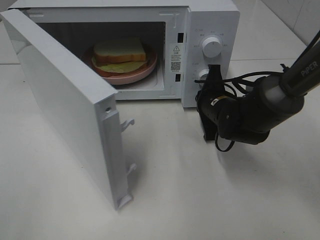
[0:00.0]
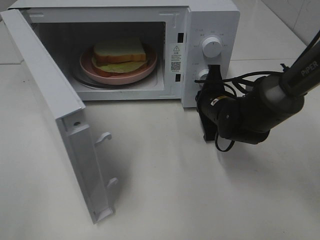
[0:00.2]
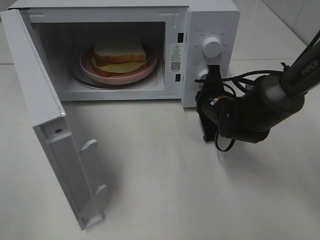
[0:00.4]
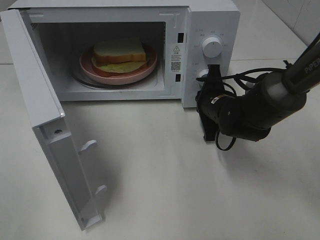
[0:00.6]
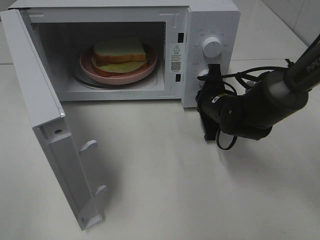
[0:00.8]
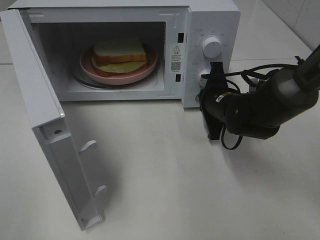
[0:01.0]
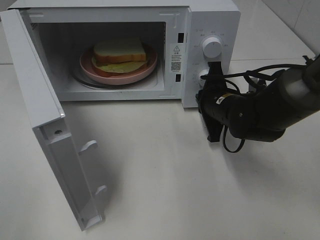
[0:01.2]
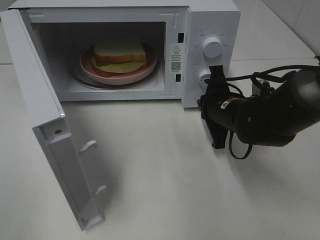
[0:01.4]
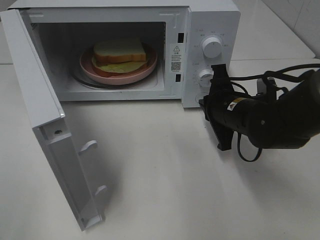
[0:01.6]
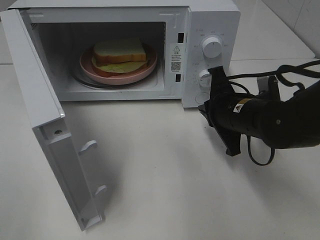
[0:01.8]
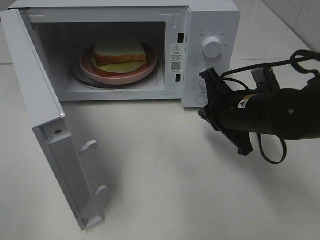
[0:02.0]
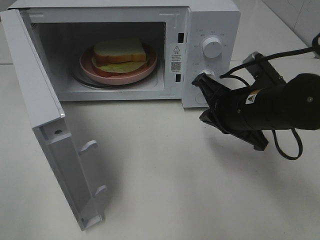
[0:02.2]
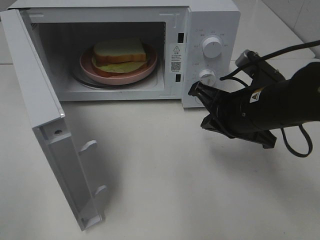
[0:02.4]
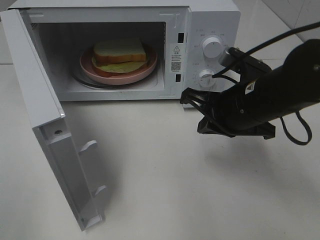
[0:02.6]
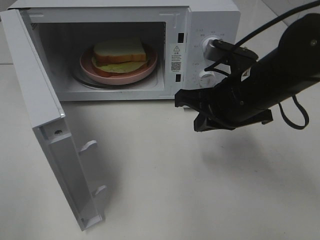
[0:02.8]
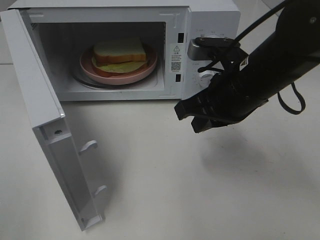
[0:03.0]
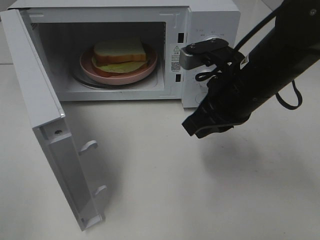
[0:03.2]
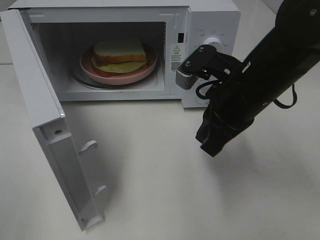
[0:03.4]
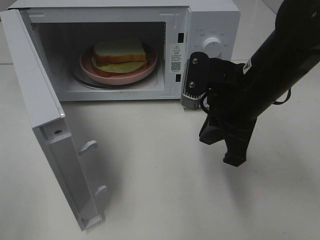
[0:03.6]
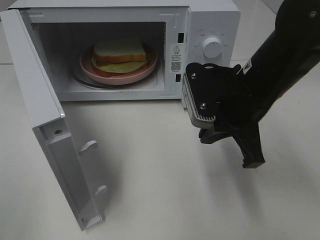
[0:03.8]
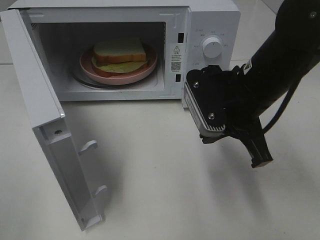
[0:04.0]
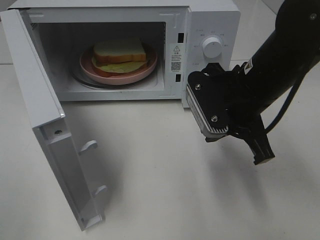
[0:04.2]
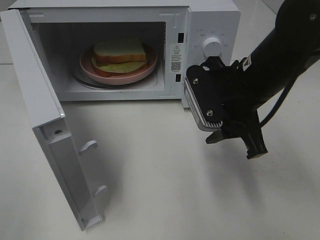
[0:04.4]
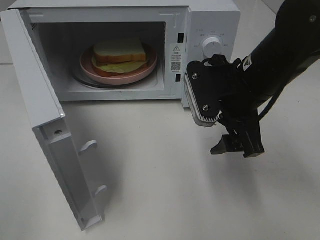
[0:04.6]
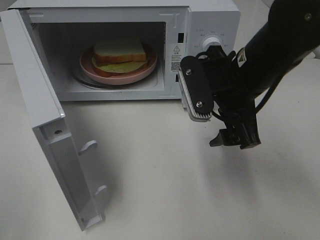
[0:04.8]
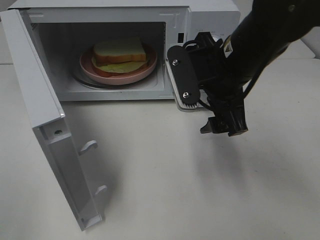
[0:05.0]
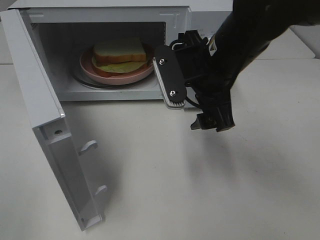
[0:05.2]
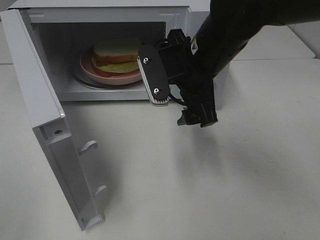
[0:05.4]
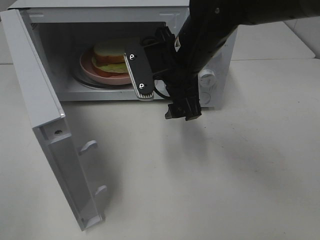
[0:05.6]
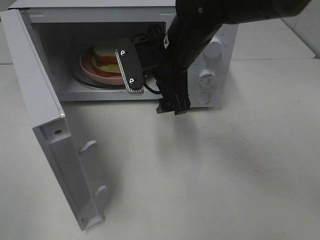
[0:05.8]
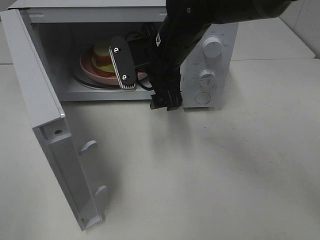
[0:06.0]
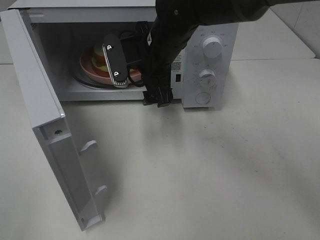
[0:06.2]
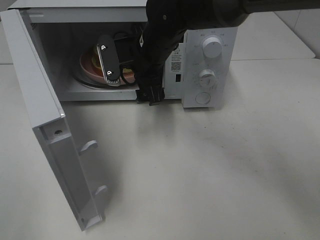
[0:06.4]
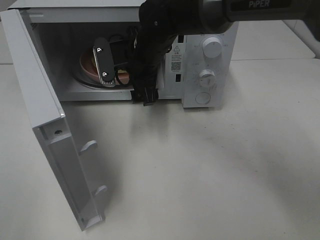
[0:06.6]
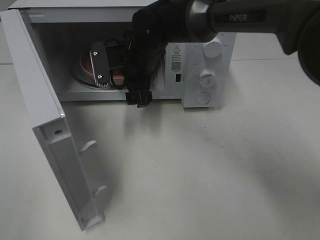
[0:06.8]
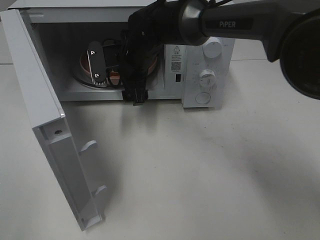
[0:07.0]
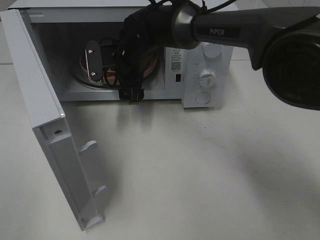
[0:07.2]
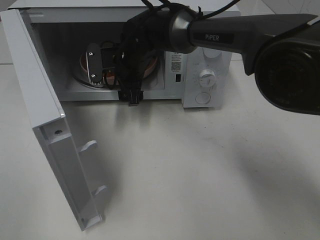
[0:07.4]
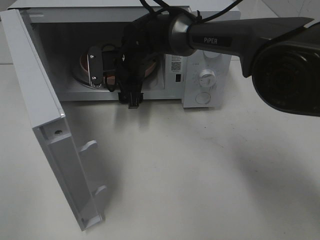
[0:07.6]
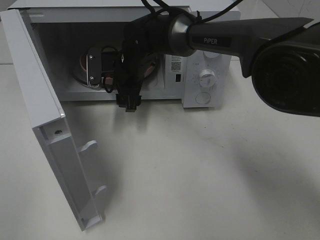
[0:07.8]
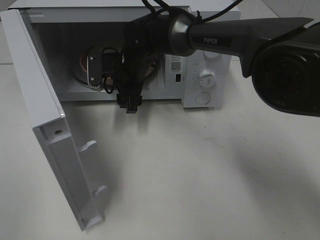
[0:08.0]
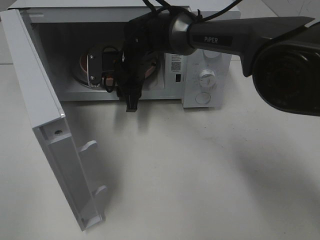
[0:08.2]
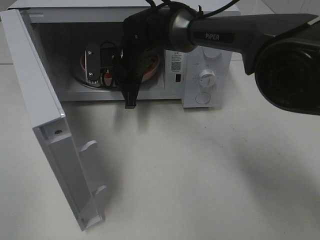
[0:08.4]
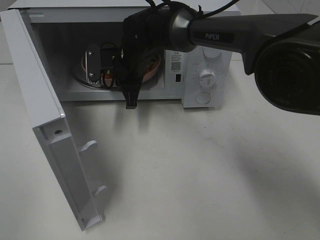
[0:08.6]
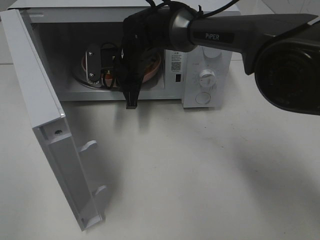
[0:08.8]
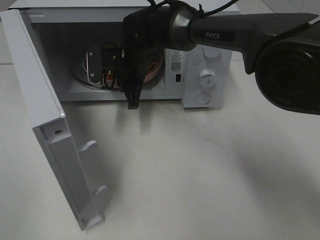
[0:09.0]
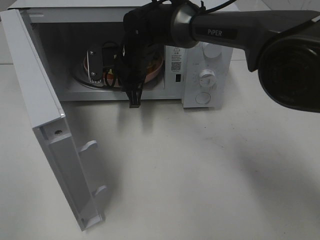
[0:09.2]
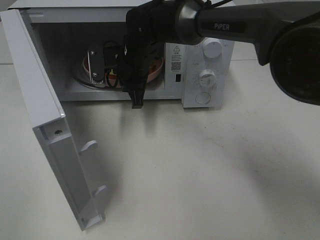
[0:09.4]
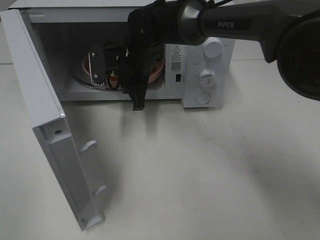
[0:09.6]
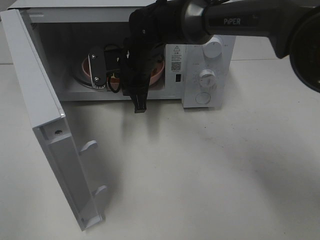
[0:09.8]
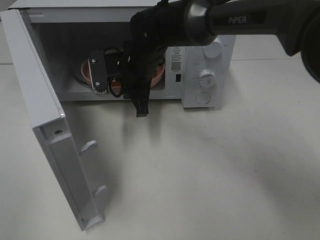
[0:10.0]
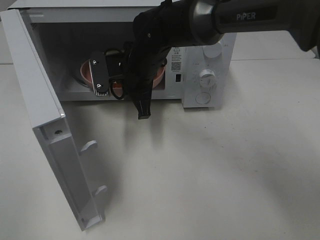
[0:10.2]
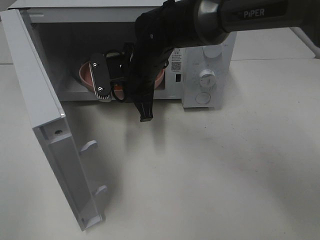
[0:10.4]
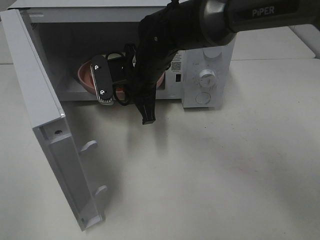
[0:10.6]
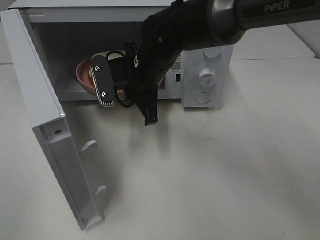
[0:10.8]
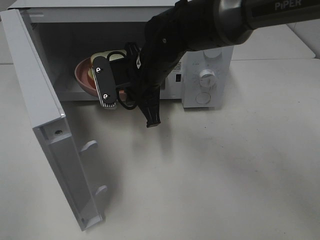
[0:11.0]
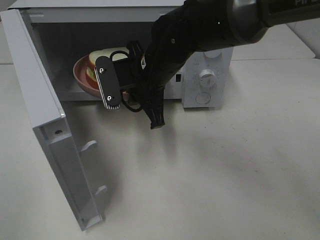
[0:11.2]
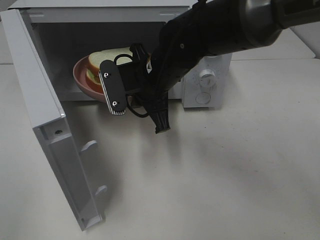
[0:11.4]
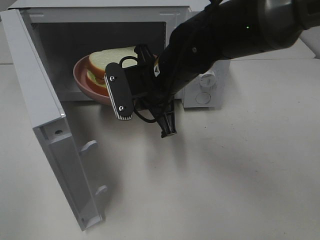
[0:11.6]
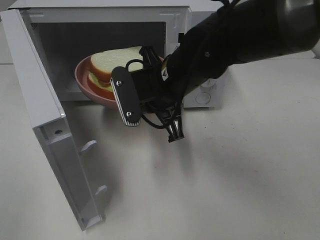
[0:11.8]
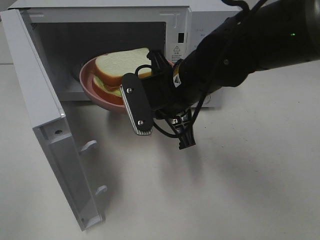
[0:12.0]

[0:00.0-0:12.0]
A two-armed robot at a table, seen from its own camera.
Task of the whole recording: Heat Sandwich.
Step, 0:01.6 to 0:08.8: Right hand: grab the plate with the sandwich.
0:00.0 to 0:01.6: The right gripper goes about 5 cm backward.
0:01.6 to 0:03.0: The right gripper goes some 10 cm upward.
0:03.0 to 0:04.4: The right gripper opens its fingers.
0:04.4 to 0:06.0: The right gripper shifts about 15 cm to the left and forward, and opens up.
0:06.0 to 0:07.6: The right gripper heads forward, downward and to the left, covering some 15 cm.
0:07.6 to 0:09.0: The right gripper closes its fingers.
0:09.0 to 0:10.4: The right gripper travels backward by some 5 cm.
0:10.4 to 0:12.0: The right gripper moves backward and to the right, approximately 10 cm.

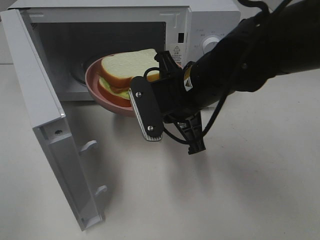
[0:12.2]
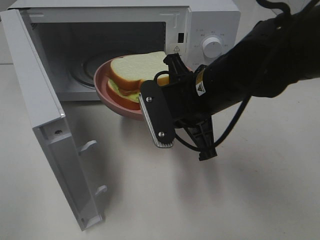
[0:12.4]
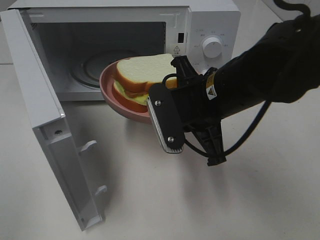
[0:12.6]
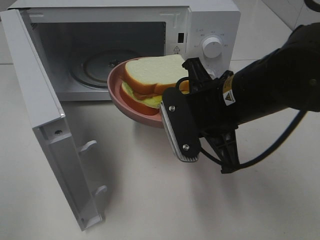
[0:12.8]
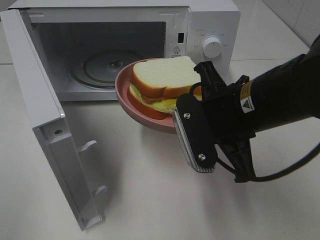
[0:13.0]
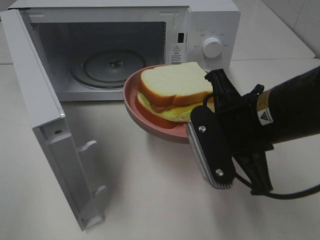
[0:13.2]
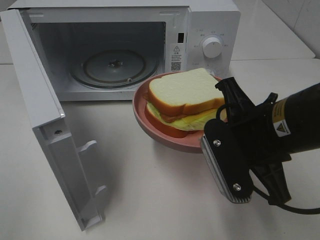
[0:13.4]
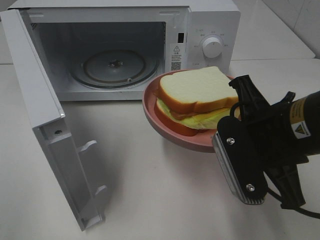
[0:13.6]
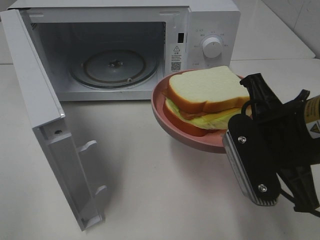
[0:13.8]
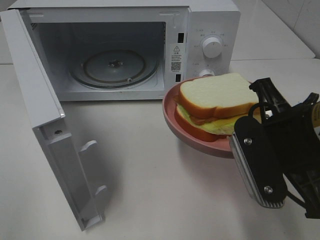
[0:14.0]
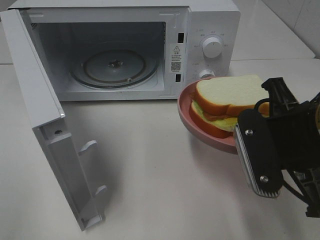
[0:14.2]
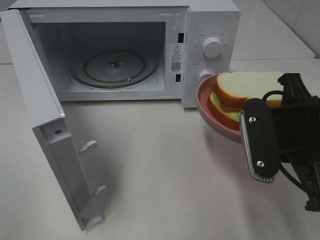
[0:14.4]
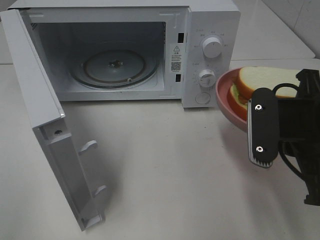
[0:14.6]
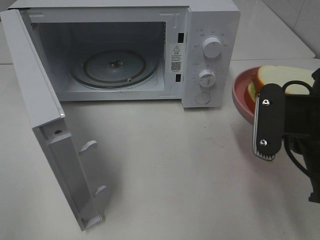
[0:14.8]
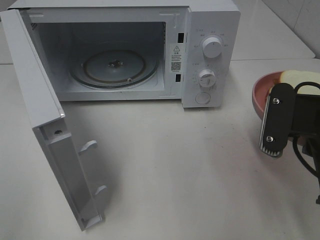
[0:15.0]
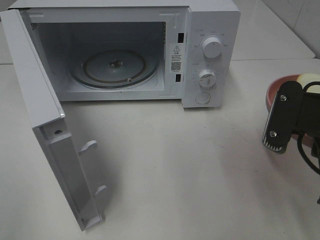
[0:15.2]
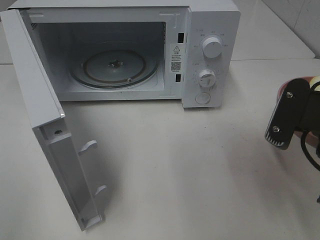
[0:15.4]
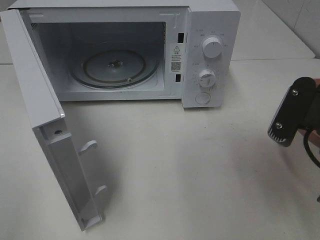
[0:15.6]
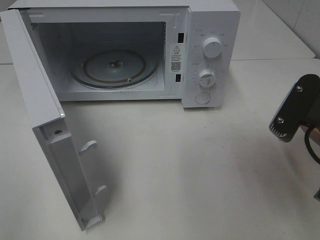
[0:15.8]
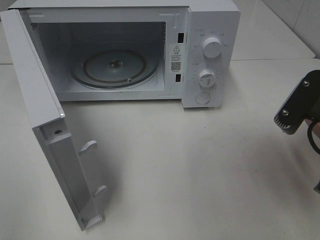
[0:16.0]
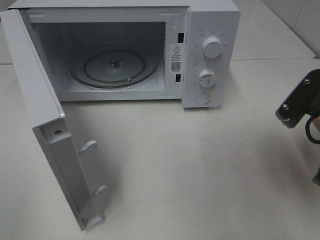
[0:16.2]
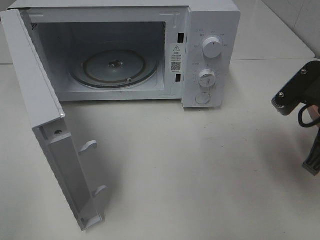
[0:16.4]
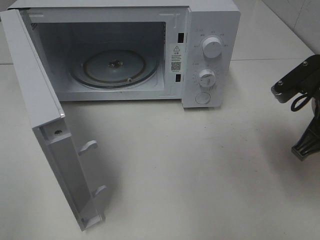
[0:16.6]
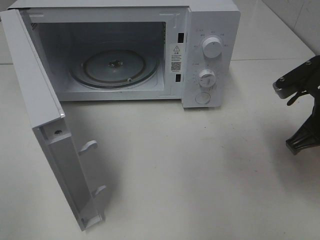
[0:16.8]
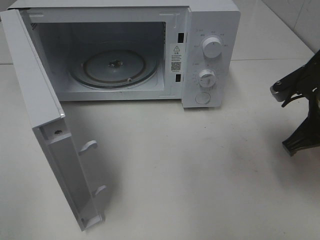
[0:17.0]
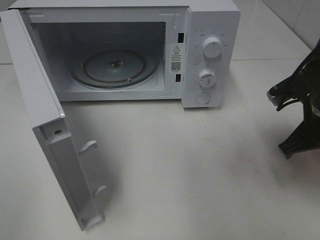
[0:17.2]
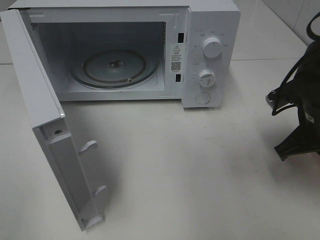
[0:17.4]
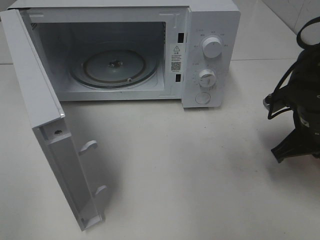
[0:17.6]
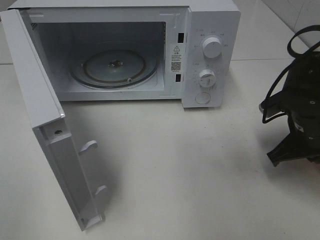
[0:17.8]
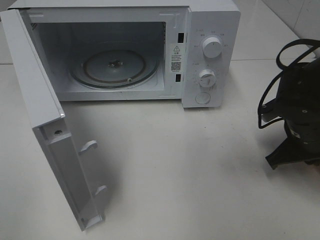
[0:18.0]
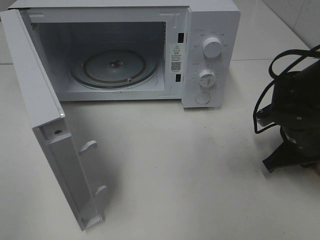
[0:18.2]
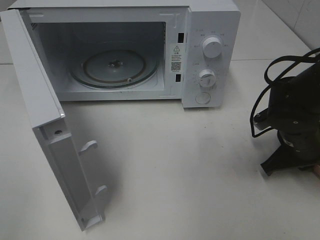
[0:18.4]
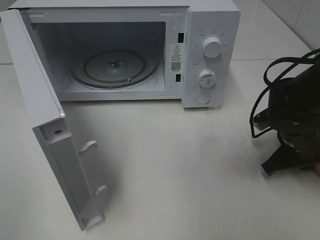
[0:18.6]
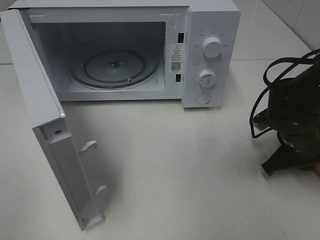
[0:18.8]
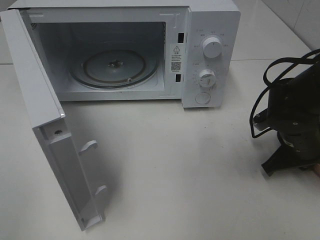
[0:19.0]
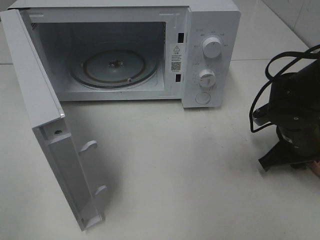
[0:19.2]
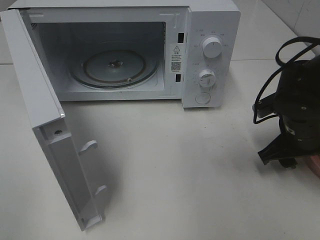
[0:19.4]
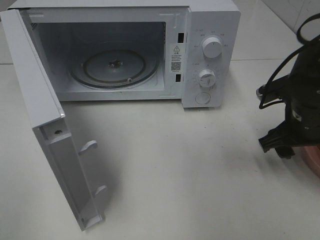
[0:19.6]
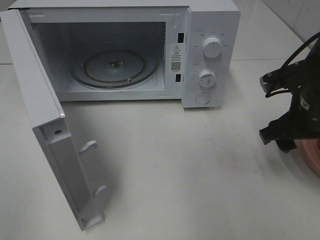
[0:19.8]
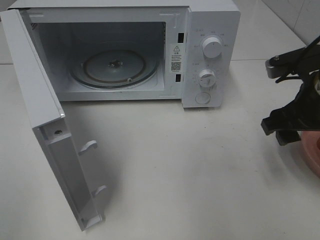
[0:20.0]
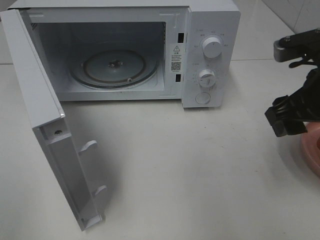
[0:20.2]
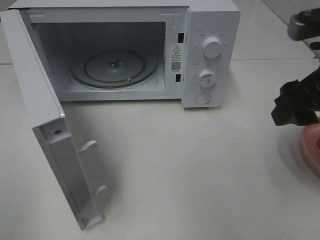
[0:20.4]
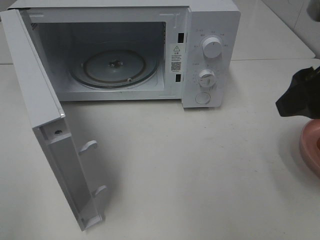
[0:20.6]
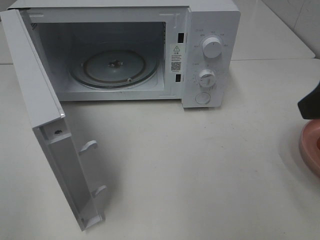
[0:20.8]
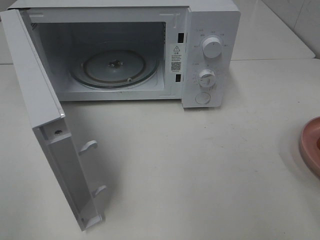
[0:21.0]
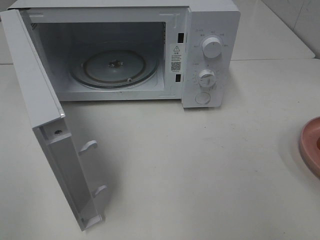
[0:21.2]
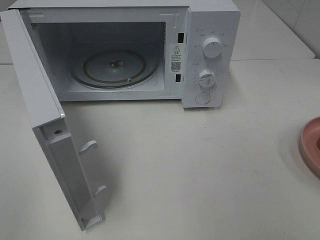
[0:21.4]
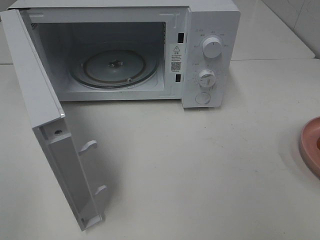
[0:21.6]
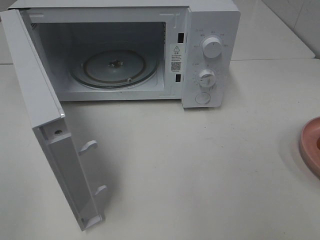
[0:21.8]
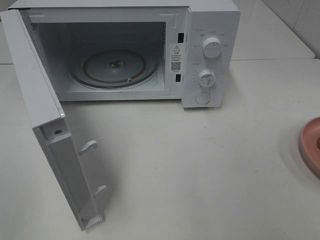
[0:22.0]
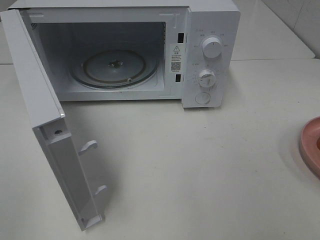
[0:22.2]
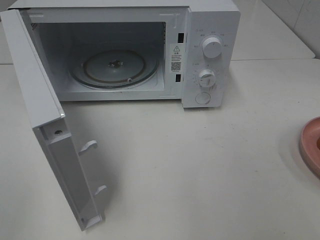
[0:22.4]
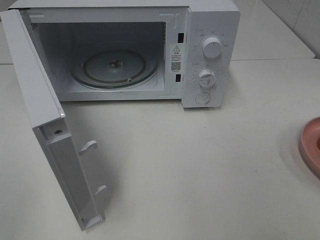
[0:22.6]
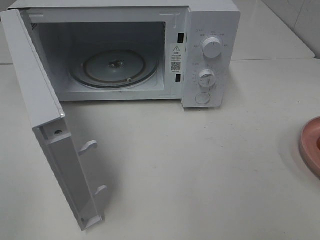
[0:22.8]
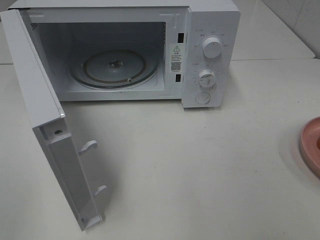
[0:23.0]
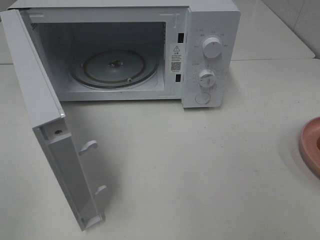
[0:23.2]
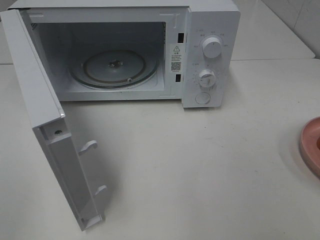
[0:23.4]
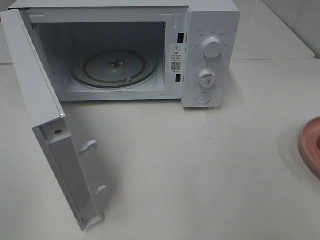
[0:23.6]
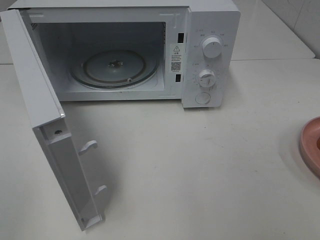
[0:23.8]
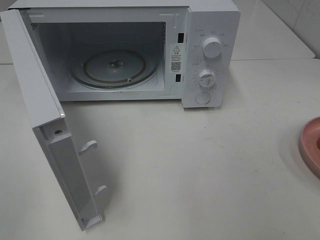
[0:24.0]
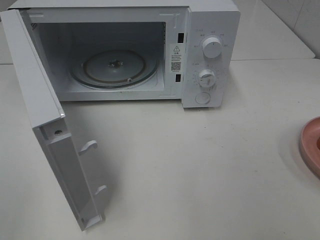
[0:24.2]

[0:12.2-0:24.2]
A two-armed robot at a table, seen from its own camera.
Task of the whole recording: Heat Sandwich.
Step, 0:12.2 to 0:20.6: Right hand: place the plate on the table.
0:12.2 to 0:13.8: The right gripper is displaced backward and to the right by approximately 15 cm.
0:15.2 to 0:16.6: The right gripper travels forward by approximately 5 cm.
0:16.6 to 0:18.2: The right gripper heads downward, covering about 10 cm.
0:18.2 to 0:19.8: The right gripper is displaced upward by approximately 10 cm, and opens.
0:19.8 to 0:21.2: The right gripper goes roughly 25 cm backward and upward.
0:22.6 to 0:24.2: Both grippers stay put.
